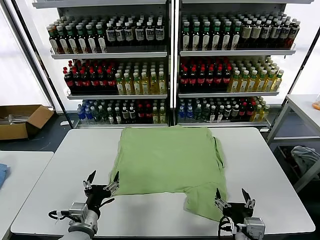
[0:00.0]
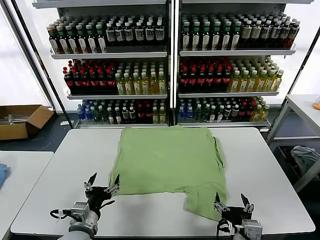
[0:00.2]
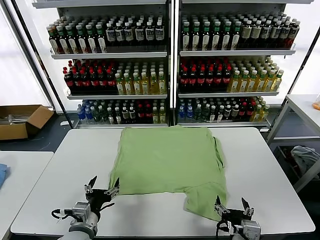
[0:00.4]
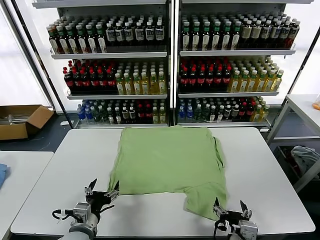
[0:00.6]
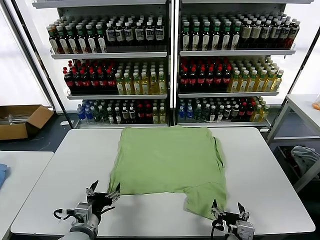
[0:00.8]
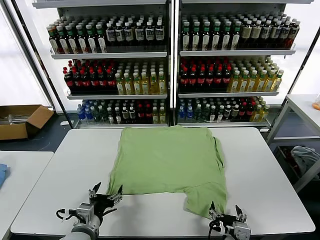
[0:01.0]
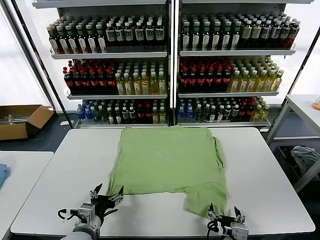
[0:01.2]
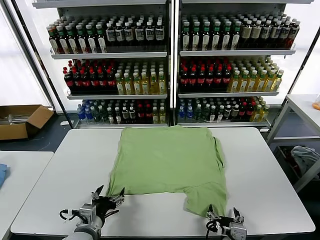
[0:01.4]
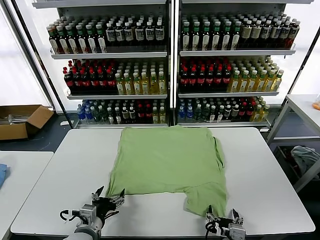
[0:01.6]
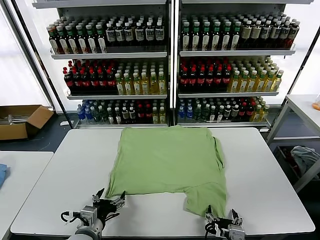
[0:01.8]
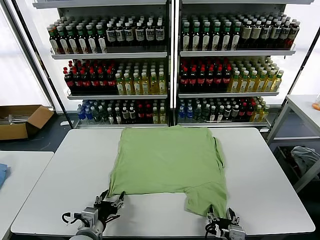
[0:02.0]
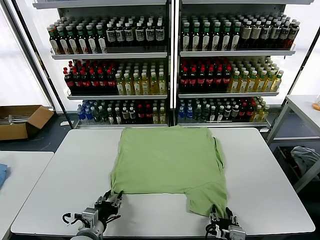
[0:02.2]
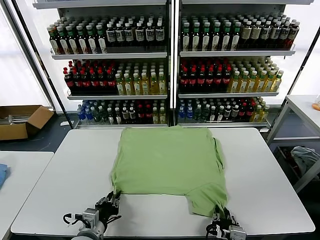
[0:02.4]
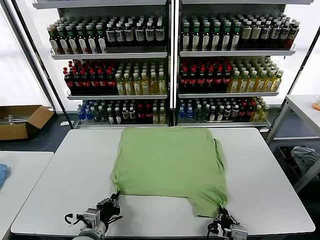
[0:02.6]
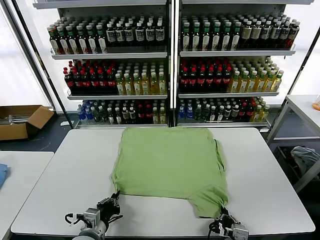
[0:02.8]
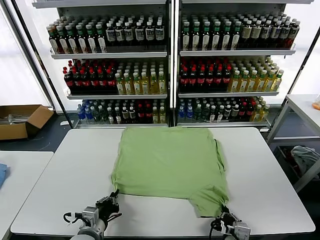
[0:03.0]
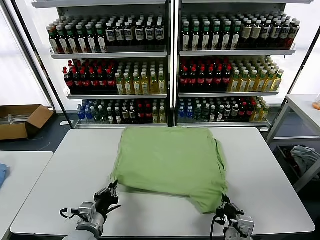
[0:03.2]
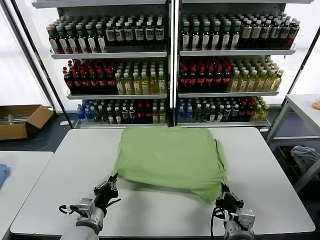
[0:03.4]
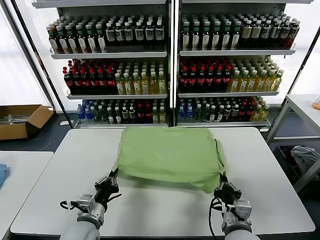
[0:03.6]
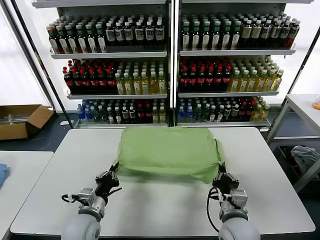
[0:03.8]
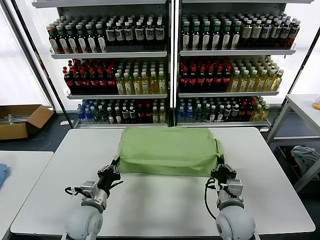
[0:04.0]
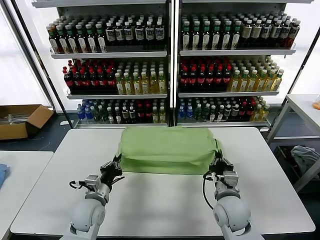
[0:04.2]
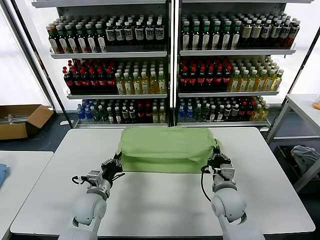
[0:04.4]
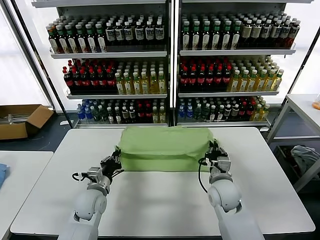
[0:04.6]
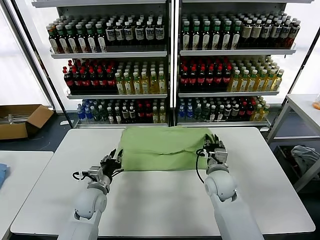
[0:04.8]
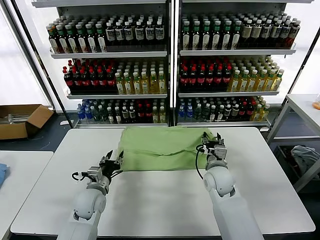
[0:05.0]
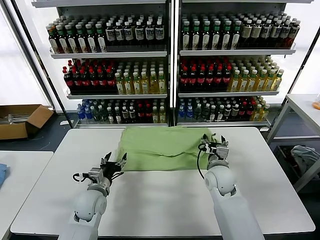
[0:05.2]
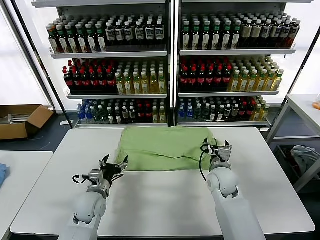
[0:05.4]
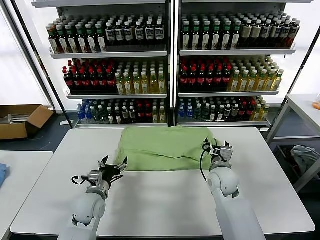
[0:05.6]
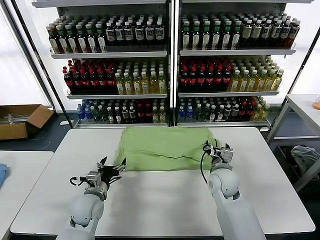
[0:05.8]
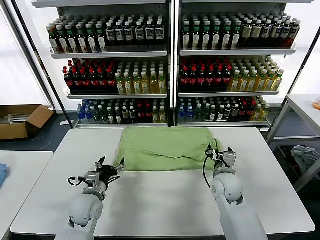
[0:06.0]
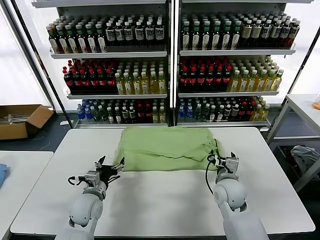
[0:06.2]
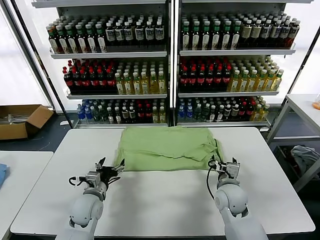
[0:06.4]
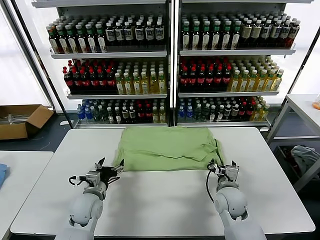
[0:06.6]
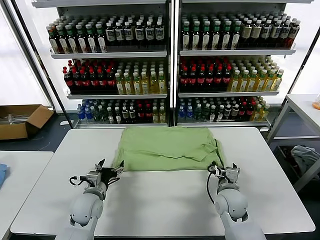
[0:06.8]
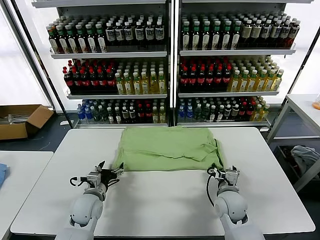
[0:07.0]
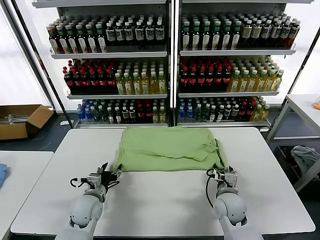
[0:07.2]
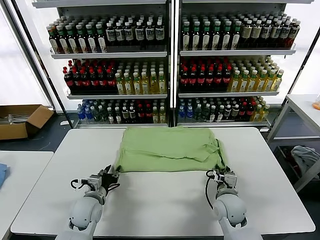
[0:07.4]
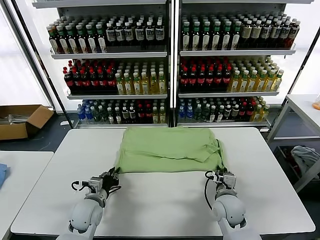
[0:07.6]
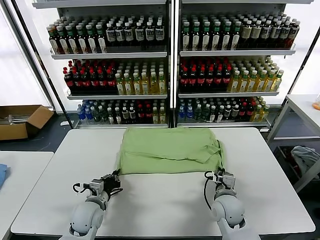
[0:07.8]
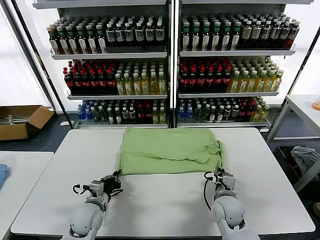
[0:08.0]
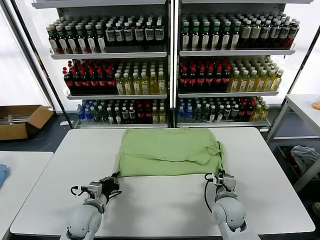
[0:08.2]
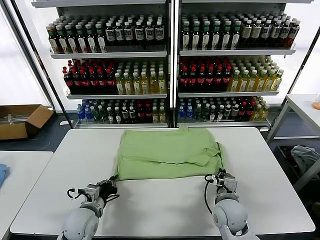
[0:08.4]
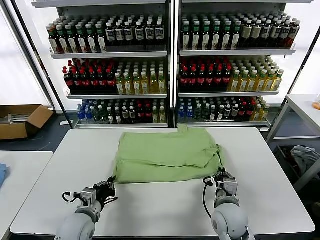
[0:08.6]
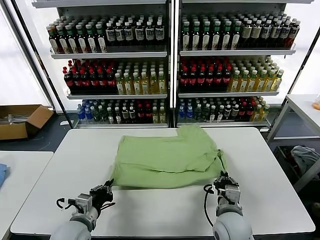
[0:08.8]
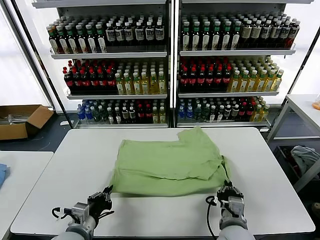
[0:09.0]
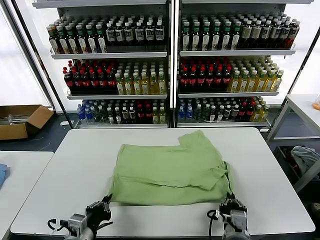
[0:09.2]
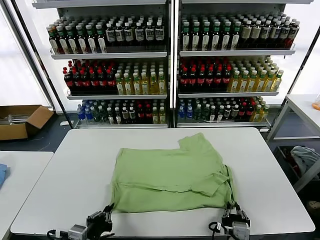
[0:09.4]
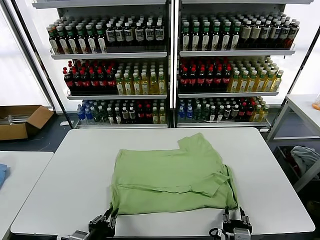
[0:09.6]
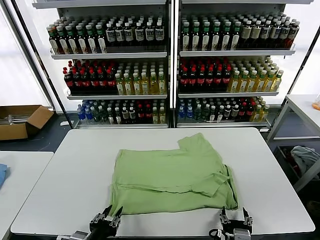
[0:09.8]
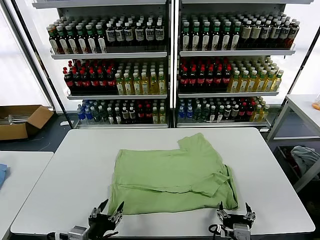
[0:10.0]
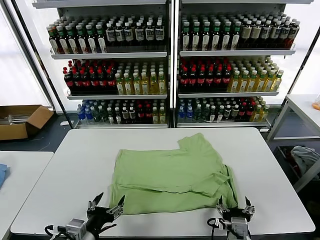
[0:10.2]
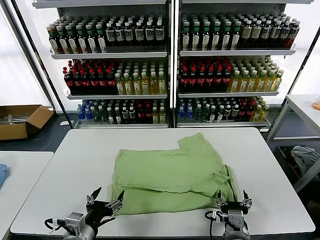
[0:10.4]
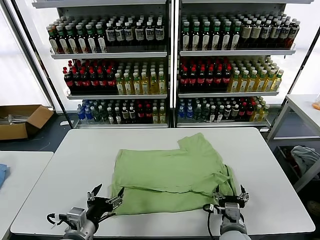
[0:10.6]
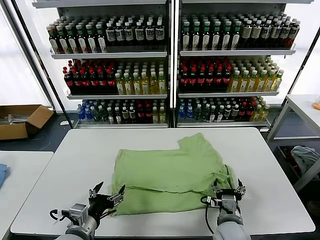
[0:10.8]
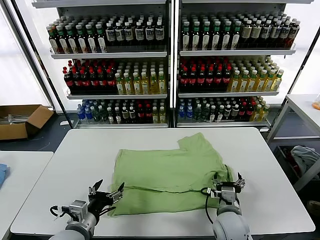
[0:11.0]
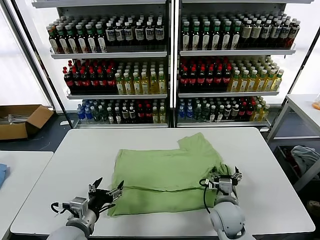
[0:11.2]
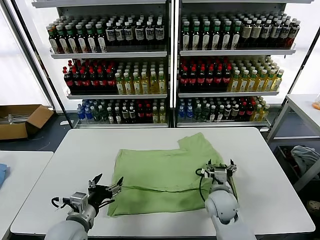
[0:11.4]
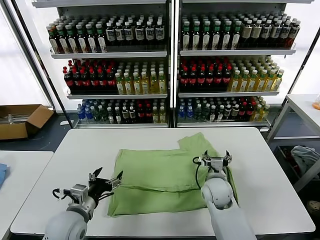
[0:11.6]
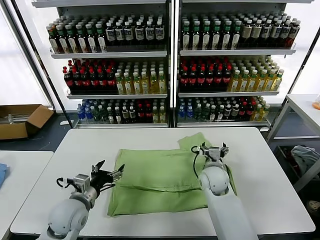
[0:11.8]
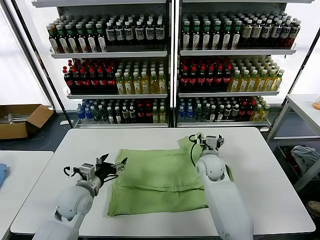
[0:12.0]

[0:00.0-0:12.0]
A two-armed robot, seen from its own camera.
Task of the whole recording: fold and organize the clothes.
Step, 0:00.0 to 0:02.6: use both grippers simultaneously to clamp the lower edge of the clothing fabric.
Step, 0:02.8 to 0:05.4: use both grippers to drag the lower edge of the fabric forward and fold it over the upper edge.
Step, 0:05.6 to 0:09.8: Drag the clothes downward with both gripper.
0:01.6 to 0:03.0: The right gripper closes up. Meanwhile the left gripper closes its fingers.
0:03.0 to 0:04.4: Both grippers travel together forward, approximately 15 cm.
0:04.4 to 0:06.0: The right gripper opens up, while the left gripper opens up.
0:06.0 to 0:07.6: The left gripper closes up, while the right gripper ends up approximately 5 cm from where it was, and closes its fingers.
0:07.6 to 0:09.0: The right gripper is displaced backward by approximately 10 cm; the left gripper goes some 10 cm backward and upward.
0:09.0 to 0:10.4: The left gripper opens; the right gripper opens up.
0:10.4 to 0:12.0: The left gripper travels forward by roughly 15 cm; the right gripper heads forward, covering roughly 30 cm.

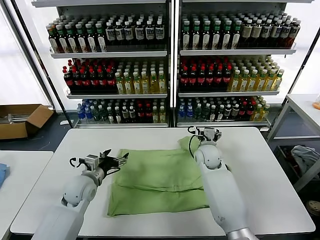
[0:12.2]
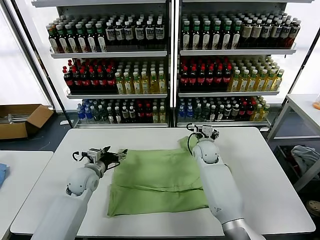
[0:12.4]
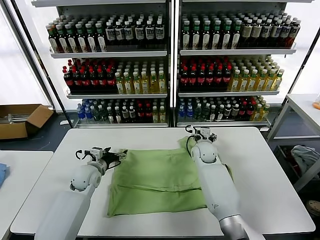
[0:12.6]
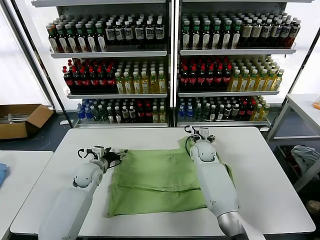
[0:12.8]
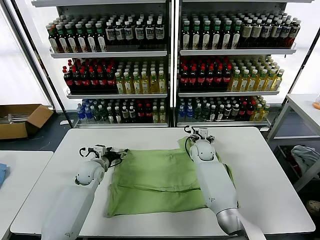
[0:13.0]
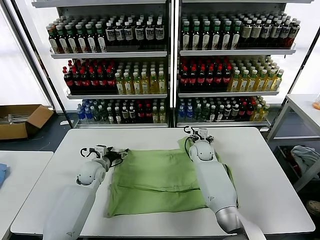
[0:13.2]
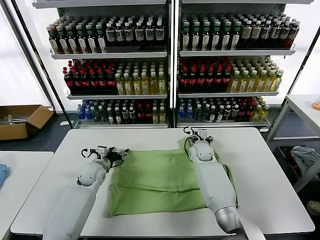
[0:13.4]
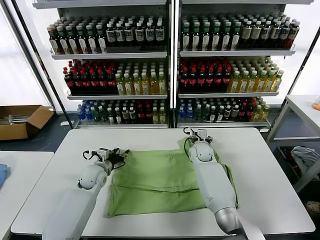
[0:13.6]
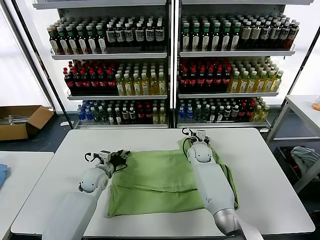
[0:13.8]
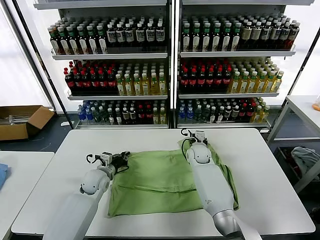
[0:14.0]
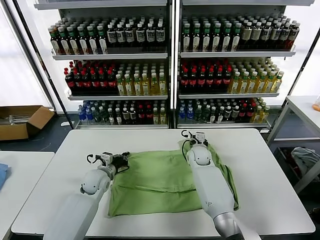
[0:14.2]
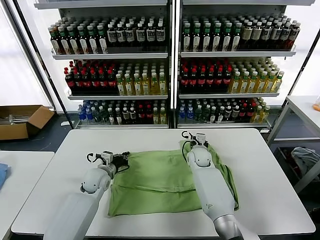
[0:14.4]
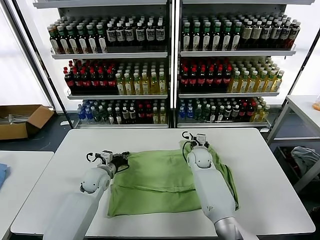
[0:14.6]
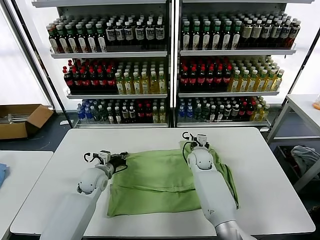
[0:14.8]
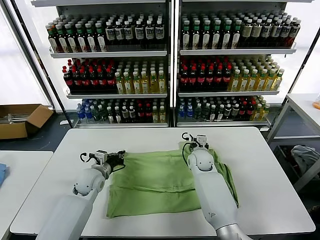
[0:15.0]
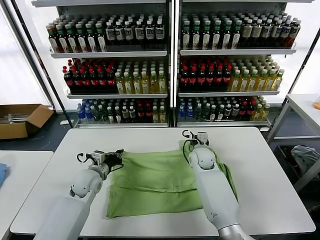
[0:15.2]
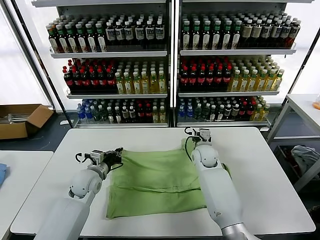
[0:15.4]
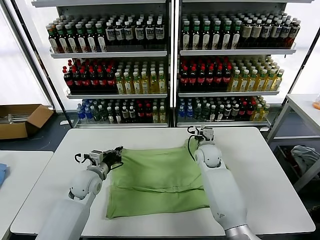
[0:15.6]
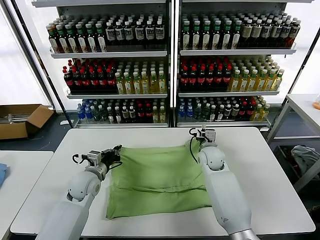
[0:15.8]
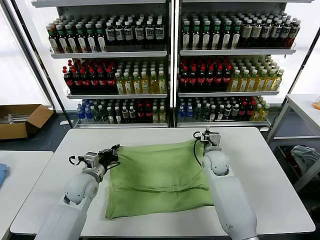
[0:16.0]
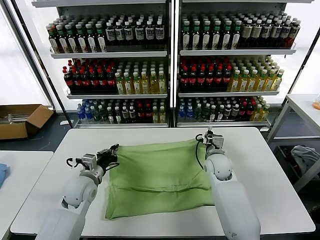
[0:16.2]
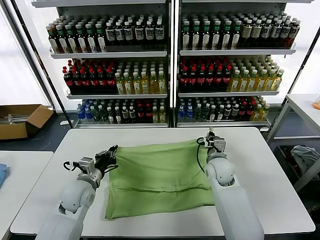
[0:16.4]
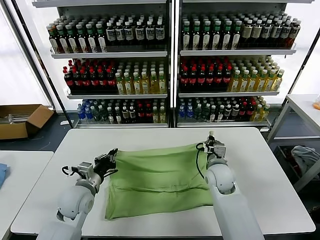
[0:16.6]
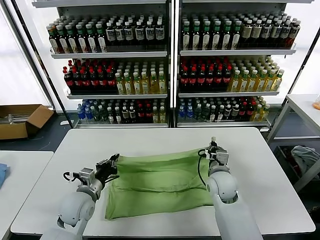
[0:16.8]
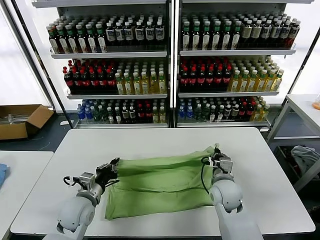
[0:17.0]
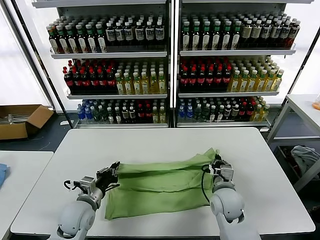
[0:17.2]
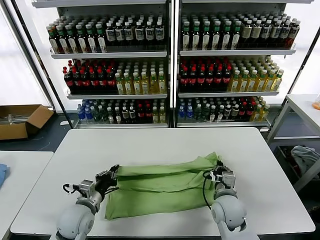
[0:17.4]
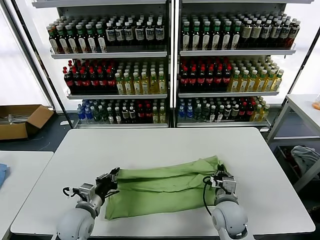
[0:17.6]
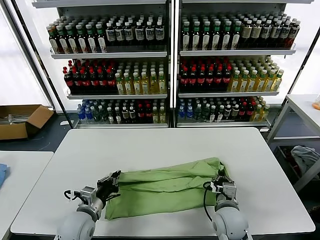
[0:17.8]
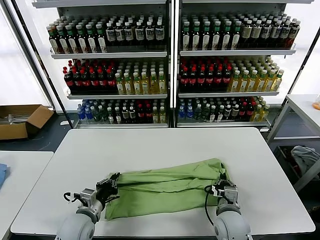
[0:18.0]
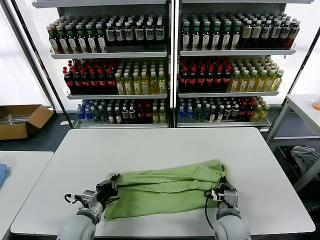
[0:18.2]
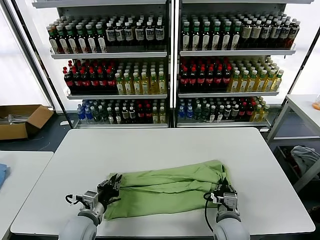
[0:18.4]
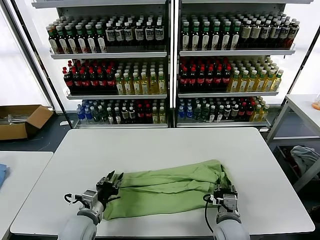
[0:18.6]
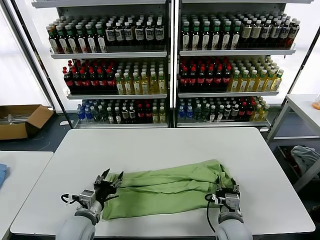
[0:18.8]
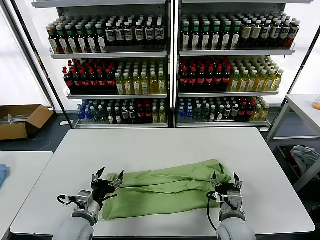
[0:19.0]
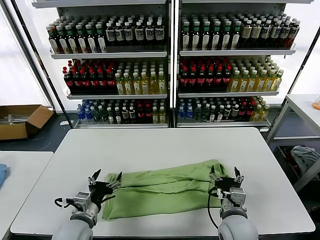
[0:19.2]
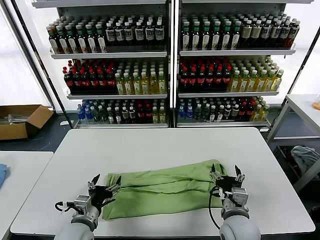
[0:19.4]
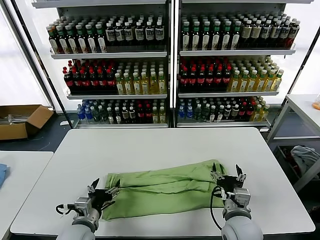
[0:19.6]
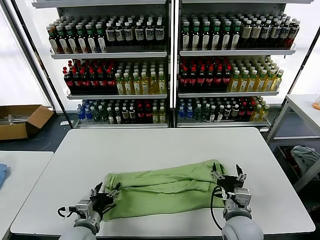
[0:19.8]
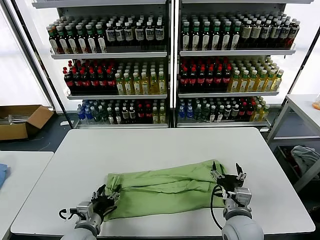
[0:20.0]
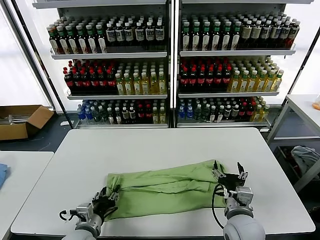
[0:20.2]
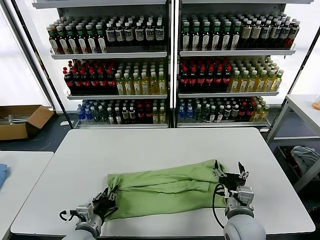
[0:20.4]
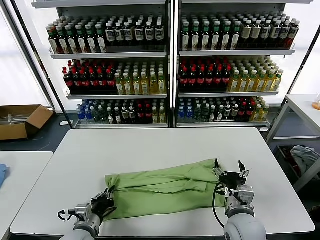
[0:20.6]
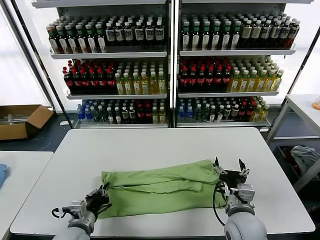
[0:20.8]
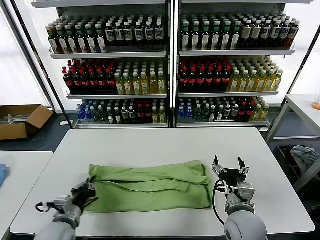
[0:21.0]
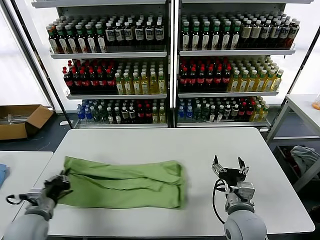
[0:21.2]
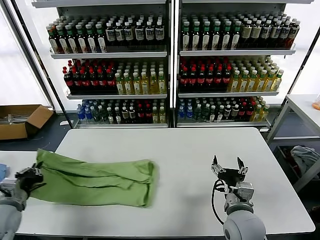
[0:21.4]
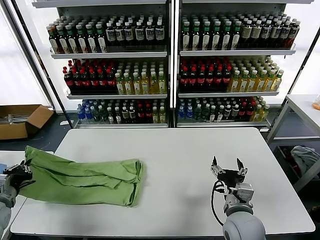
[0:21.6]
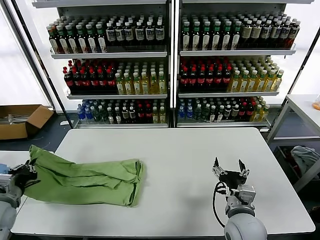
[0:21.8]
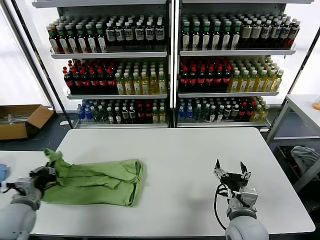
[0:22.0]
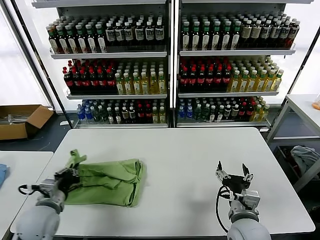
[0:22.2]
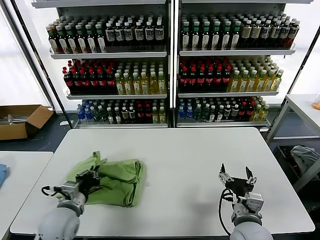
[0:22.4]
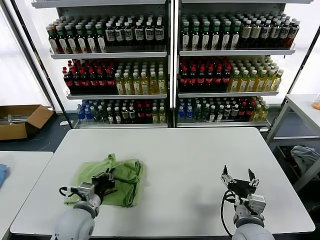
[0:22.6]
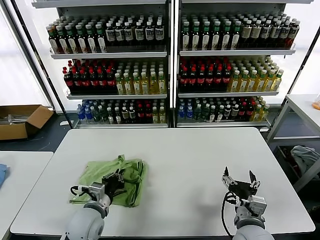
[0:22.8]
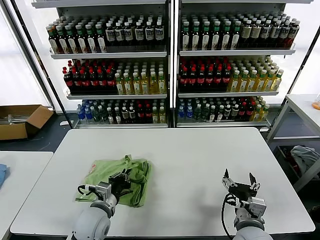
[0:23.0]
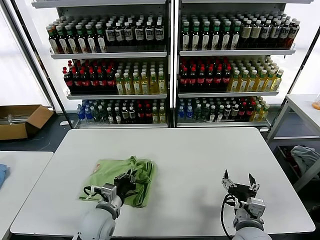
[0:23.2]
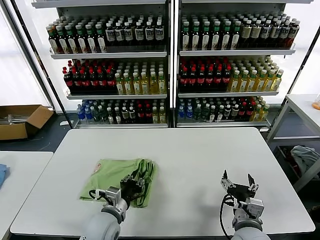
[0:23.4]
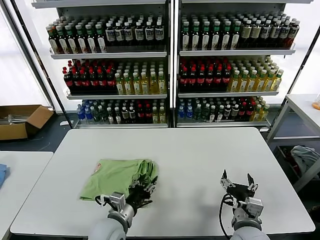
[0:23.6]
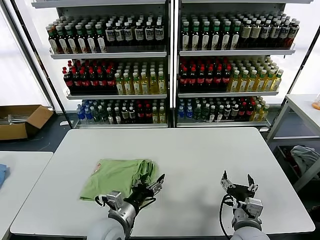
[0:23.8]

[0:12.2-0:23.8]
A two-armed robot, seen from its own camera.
Task of the whole recording: fold and organize the clothes.
Step, 0:12.2 to 0:14.4: use both grippers simultaneously to clamp the upper edge of the clothing fabric.
Step, 0:14.6 to 0:18.8: use both grippers to drag the upper edge of the fabric backward and fold it over the lower edge.
Step, 0:19.0 to 0:20.6: use the left gripper to clamp the left edge of the fabric.
Step, 0:20.8 to 0:23.4: use the left gripper to drag the left edge of the fabric to the left and folds it over the right edge.
0:12.2 to 0:13.6: The left gripper moves forward and downward, some 10 cm. The right gripper heads downward, covering roughly 5 cm.
0:13.6 to 0:15.0: The right gripper closes, while the left gripper closes up.
0:15.0 to 0:16.6: Both grippers move backward, roughly 10 cm.
0:16.6 to 0:18.0: The left gripper travels backward by roughly 5 cm. The right gripper is displaced backward by approximately 15 cm.
0:18.0 to 0:19.4: The right gripper moves about 5 cm, and opens up. Meanwhile the left gripper opens its fingers.
0:19.4 to 0:21.0: The left gripper closes its fingers.
0:21.0 to 0:22.4: The left gripper reaches roughly 20 cm to the left, then returns.
0:22.4 to 0:23.8: The left gripper heads to the right, covering roughly 15 cm, and opens up.
